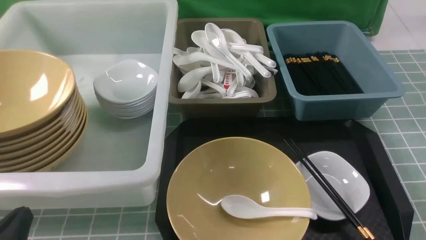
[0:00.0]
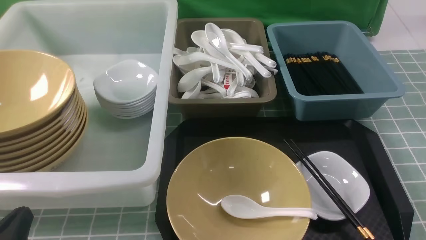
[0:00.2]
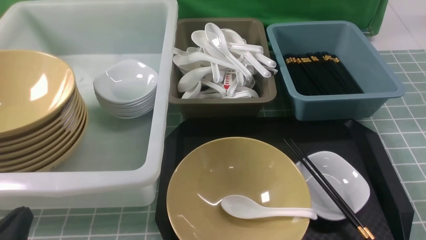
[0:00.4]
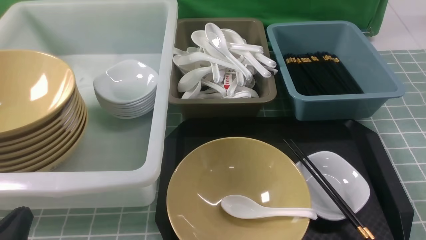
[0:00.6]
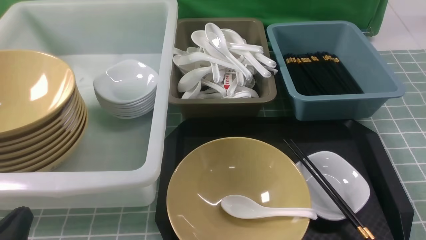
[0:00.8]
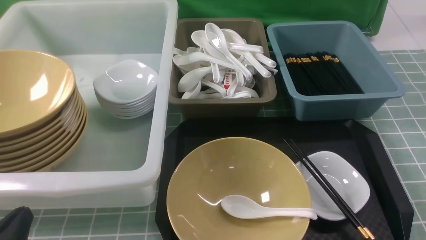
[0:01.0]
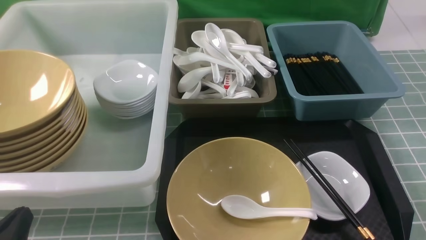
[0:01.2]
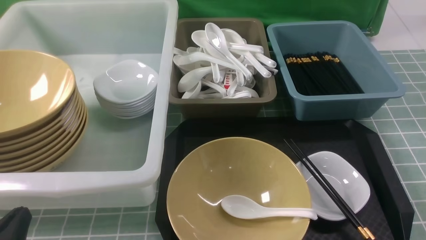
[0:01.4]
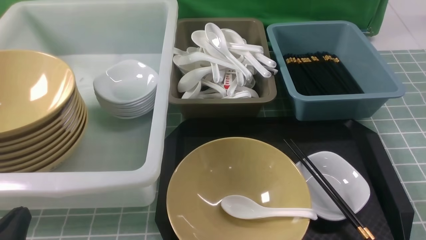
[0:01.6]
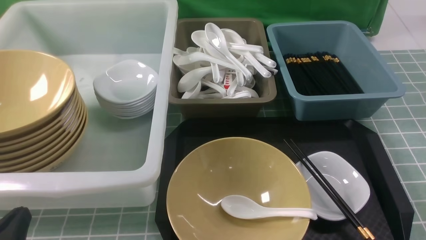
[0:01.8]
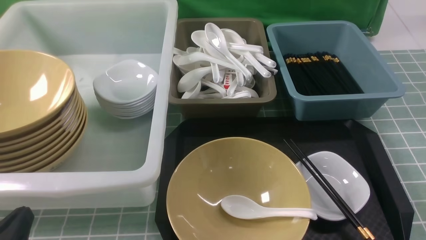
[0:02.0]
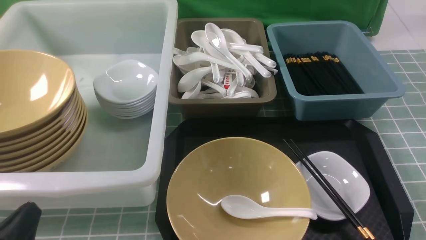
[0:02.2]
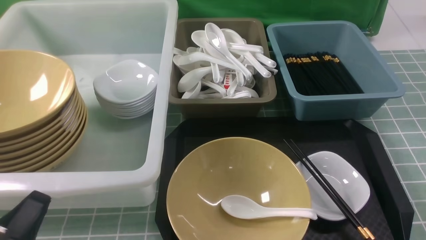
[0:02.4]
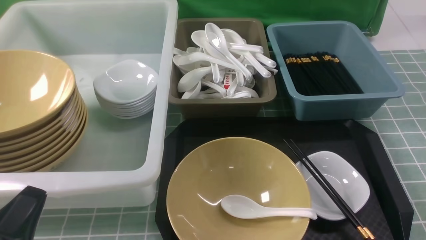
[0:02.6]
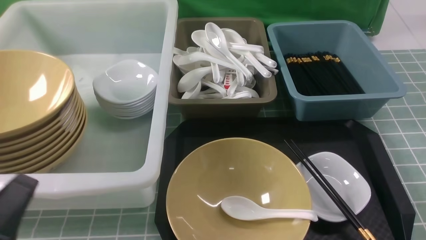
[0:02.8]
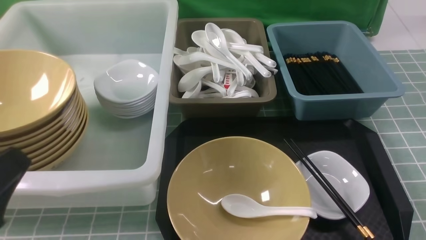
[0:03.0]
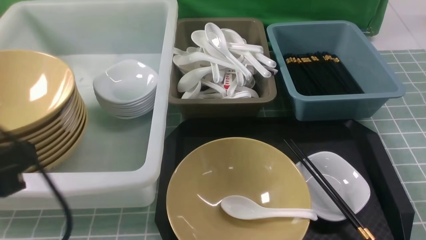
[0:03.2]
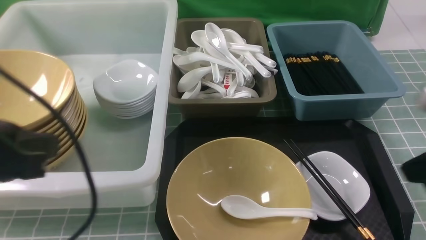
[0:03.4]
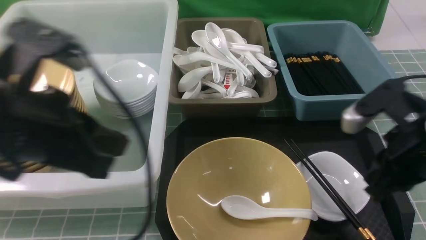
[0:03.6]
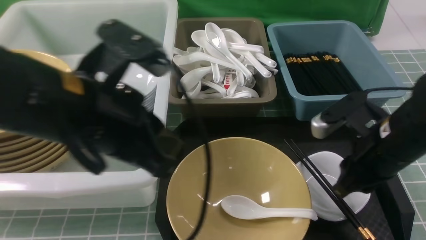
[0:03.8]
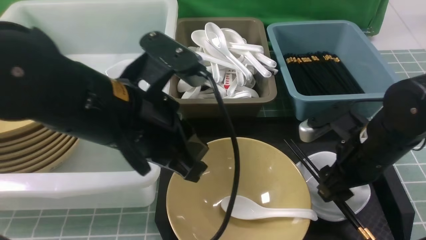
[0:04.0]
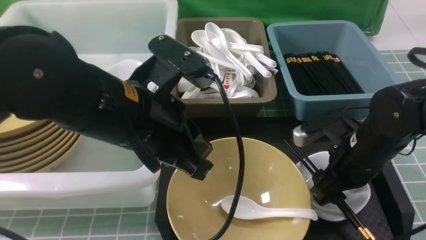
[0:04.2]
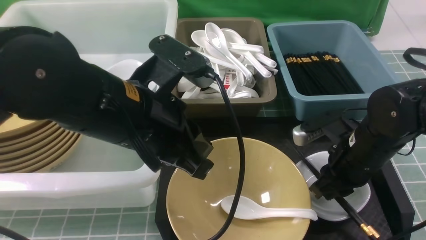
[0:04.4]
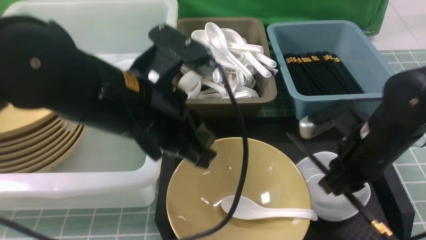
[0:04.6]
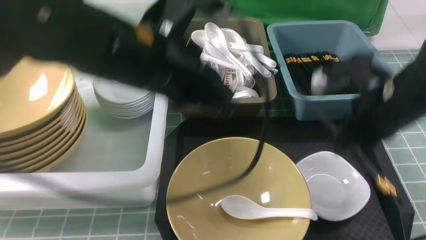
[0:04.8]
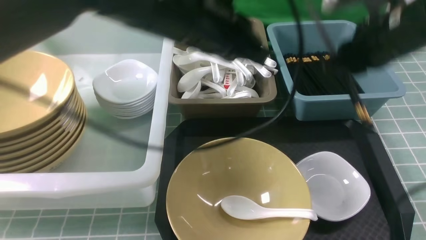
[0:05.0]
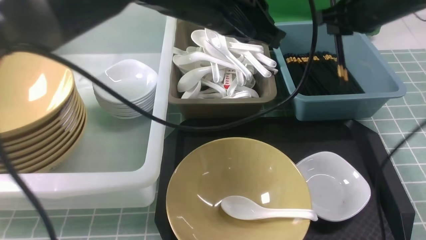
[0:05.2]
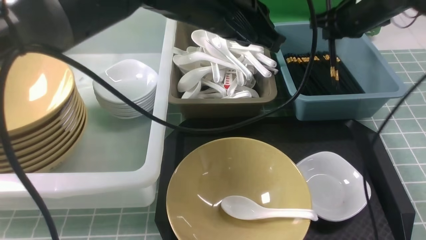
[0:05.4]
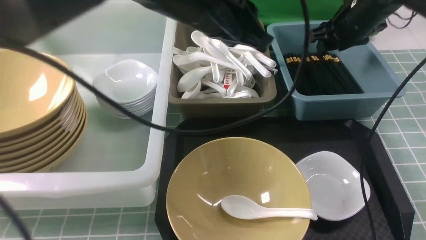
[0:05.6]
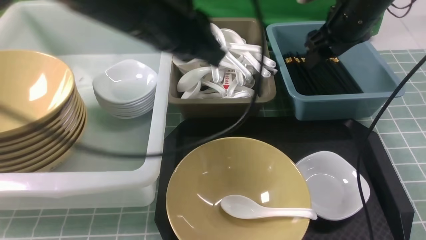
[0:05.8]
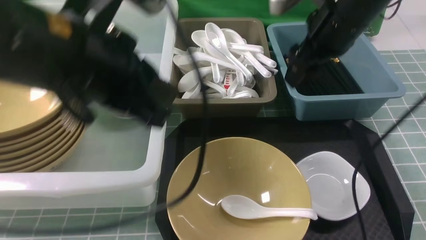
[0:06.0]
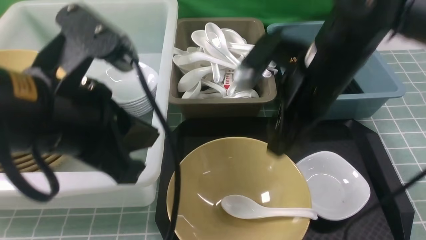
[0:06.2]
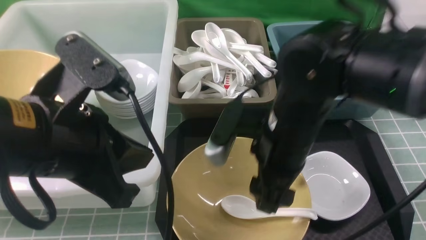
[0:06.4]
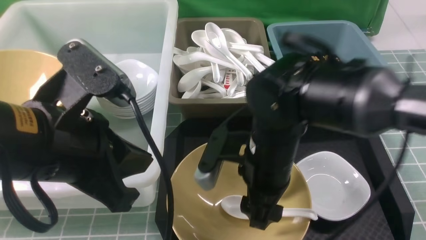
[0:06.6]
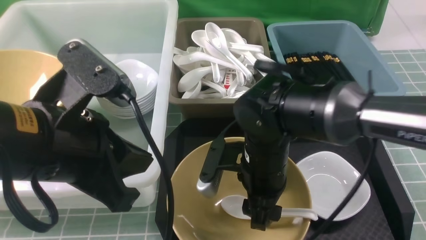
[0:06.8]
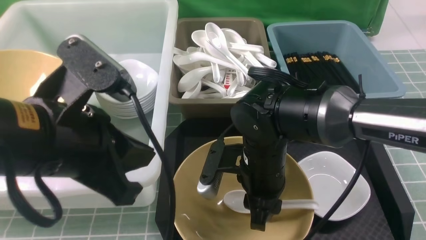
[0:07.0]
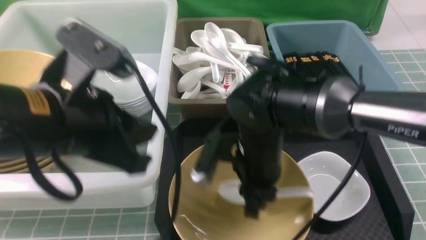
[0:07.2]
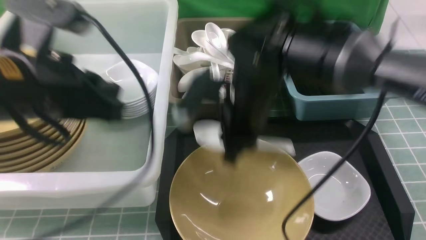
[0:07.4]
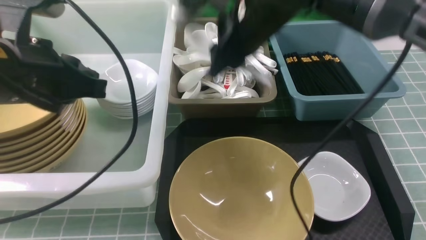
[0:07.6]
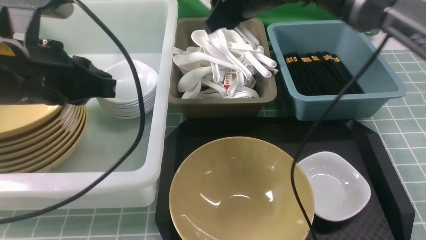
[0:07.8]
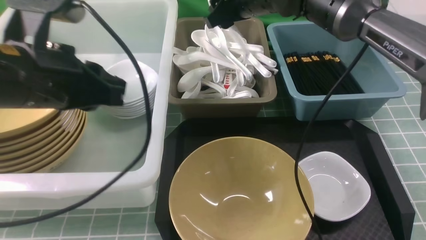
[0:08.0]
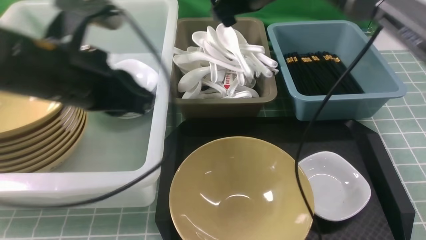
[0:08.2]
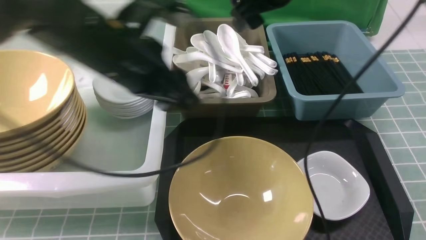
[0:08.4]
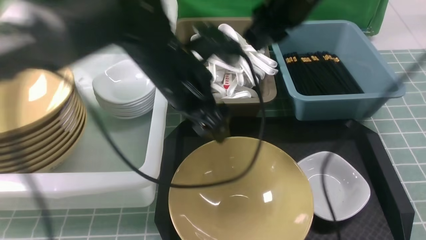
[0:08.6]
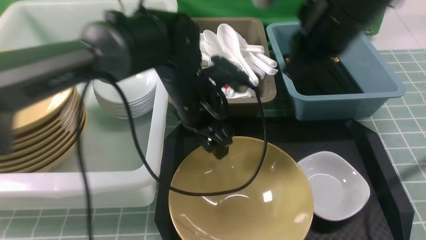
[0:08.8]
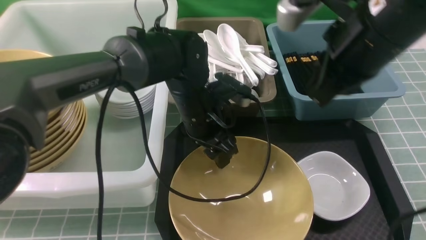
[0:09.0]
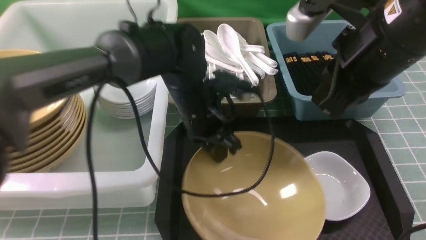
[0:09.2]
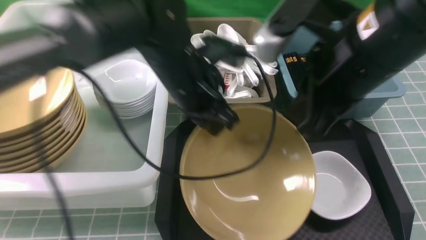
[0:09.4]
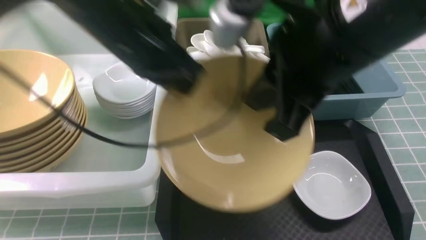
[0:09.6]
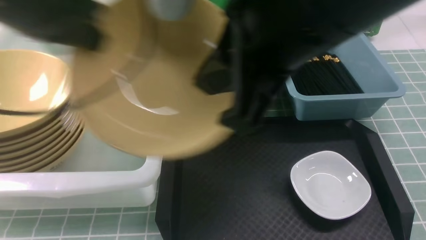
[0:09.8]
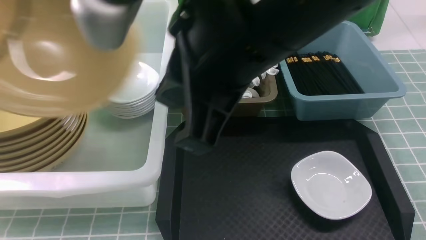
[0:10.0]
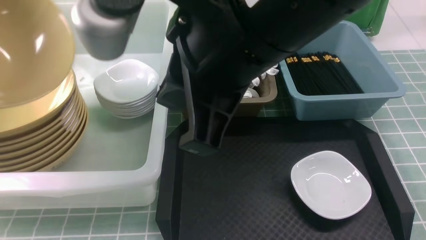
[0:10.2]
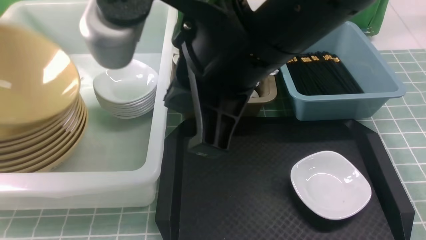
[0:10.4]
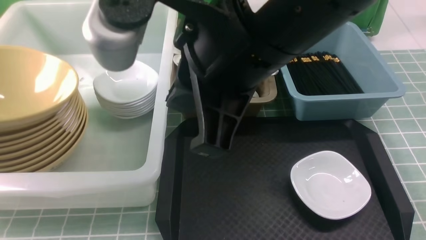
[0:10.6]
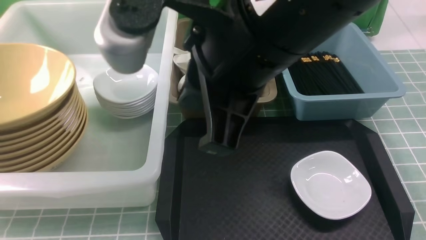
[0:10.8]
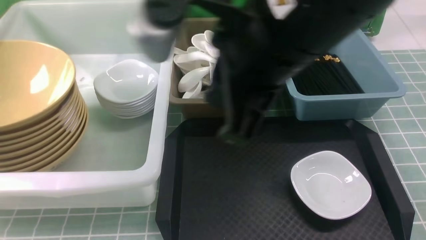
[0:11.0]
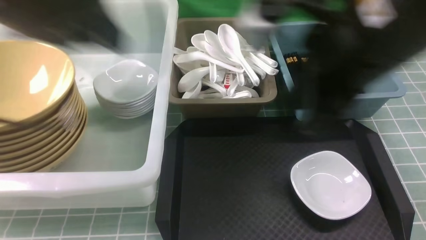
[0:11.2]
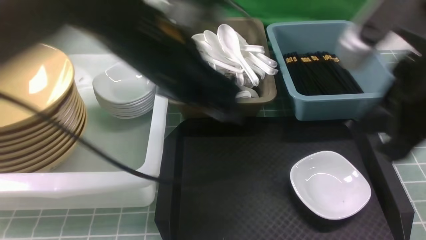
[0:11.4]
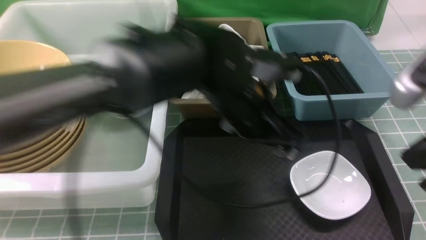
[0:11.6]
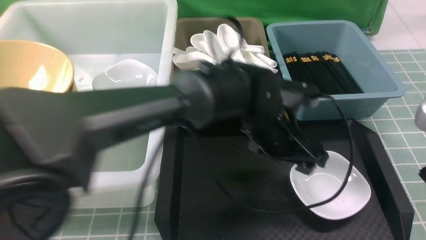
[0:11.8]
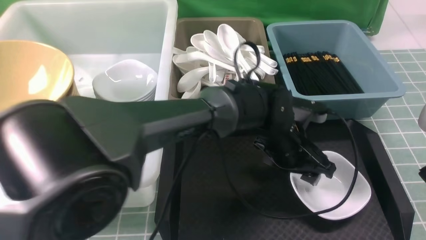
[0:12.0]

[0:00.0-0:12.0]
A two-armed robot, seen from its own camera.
Task of the whole recording: on blue table put chopsticks spoon bowls plates into blue grey white boxes.
Step, 0:00.0 to 0:04.6: use the right arm to grab the chopsticks.
Step, 0:04.8 to 0:05.8: use the right arm to put the chopsticks into the small storage box on the right.
Step, 0:06.0 to 0:07.4: use the right arm to grab the soup spoon in the middle.
Step, 0:07.6 to 0:08.2: use the right arm to put the soup spoon into the small storage box in the middle.
Step, 0:08.4 to 0:09.4: use the left arm to grab the yellow noodle bowl on the left.
Step, 0:09.6 to 0:10.6: use the left arm to put the noodle bowl into the large storage box on the left.
0:00.0 to 0:01.6: Neither gripper changes place.
0:01.6 to 0:03.0: Both grippers travel together upward, roughly 10 cm.
0:03.0 to 0:04.4: The right gripper travels forward, to the left and downward by some 25 cm, and opens, then closes once more; the left gripper shifts roughly 20 cm forward and to the right.
0:04.4 to 0:06.0: The right gripper is displaced upward and forward by approximately 15 cm, and opens. The left gripper shifts about 5 cm upward, and travels forward and back again, approximately 10 cm each way.
0:06.0 to 0:07.6: The two grippers go some 10 cm to the left. The right gripper reaches about 15 cm downward, then returns, and closes.
0:07.6 to 0:09.0: The right gripper shifts about 15 cm backward, to the right and upward, and closes its fingers. Meanwhile the left gripper shifts approximately 25 cm to the right, downward and forward, and opens its fingers.
0:09.0 to 0:10.4: The left gripper shifts approximately 40 cm to the left and upward. The right gripper moves to the left, backward and upward, about 15 cm.
0:10.4 to 0:12.0: The left gripper travels to the right and downward by about 50 cm, and opens, then closes again; the right gripper goes some 25 cm to the right and downward.

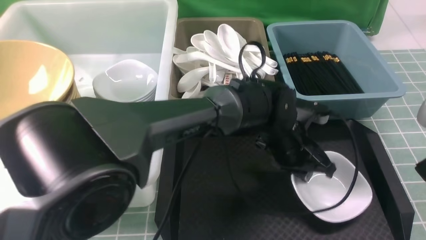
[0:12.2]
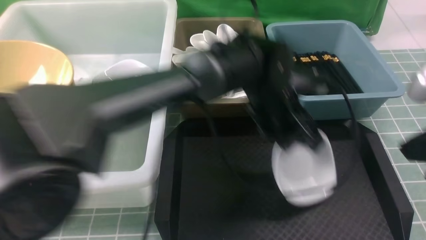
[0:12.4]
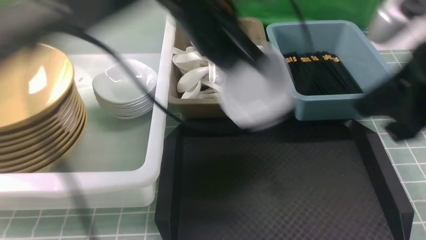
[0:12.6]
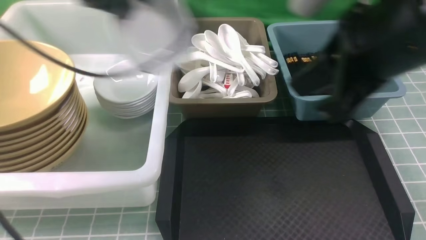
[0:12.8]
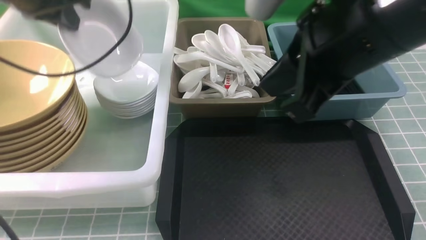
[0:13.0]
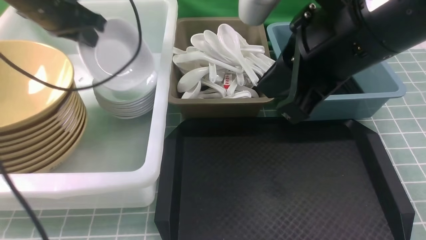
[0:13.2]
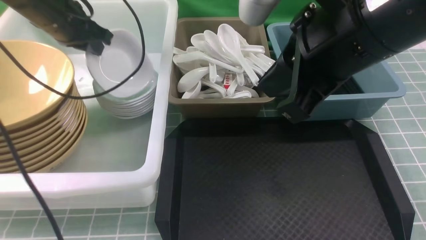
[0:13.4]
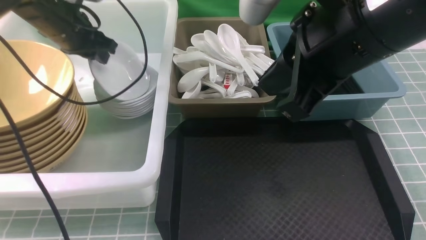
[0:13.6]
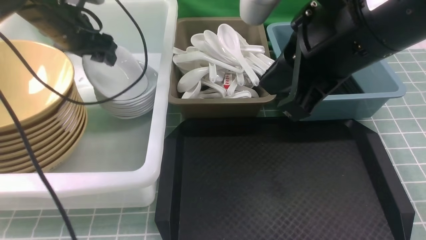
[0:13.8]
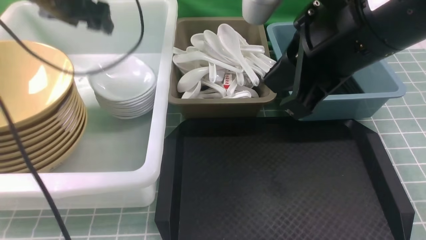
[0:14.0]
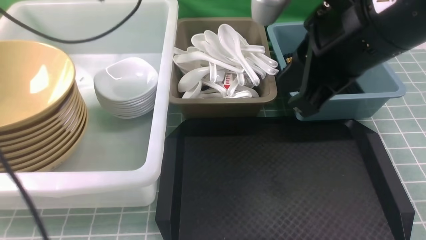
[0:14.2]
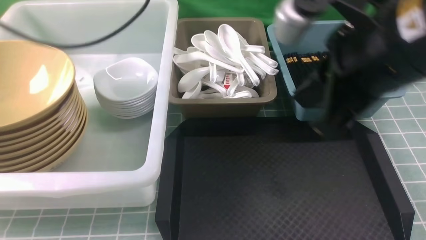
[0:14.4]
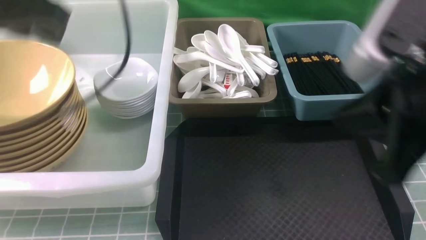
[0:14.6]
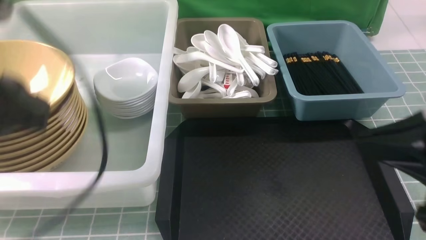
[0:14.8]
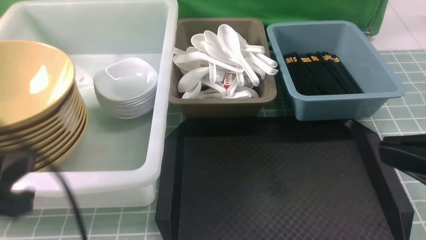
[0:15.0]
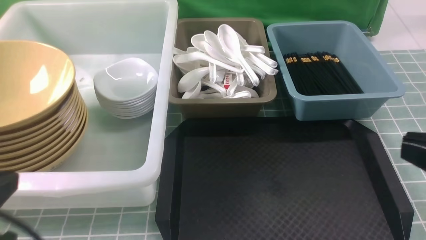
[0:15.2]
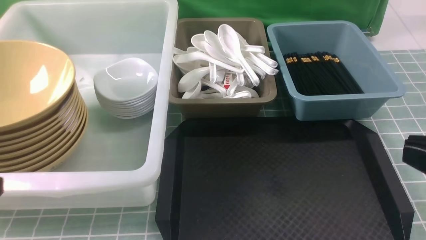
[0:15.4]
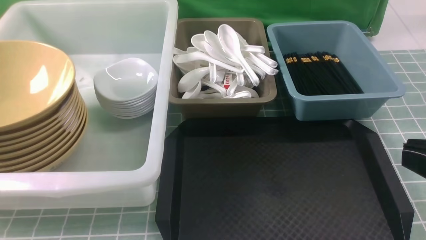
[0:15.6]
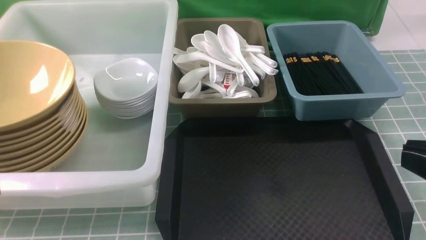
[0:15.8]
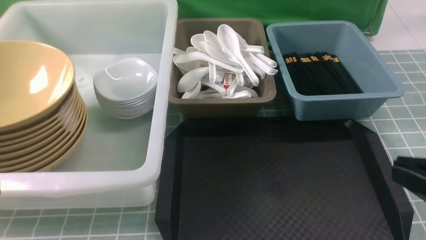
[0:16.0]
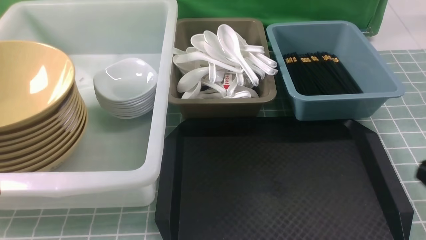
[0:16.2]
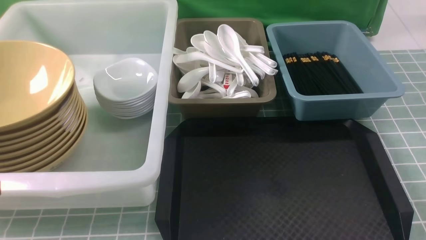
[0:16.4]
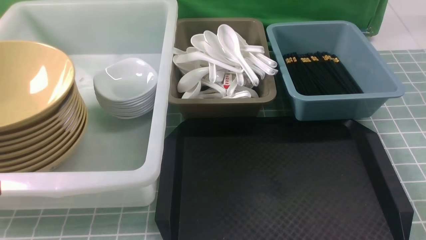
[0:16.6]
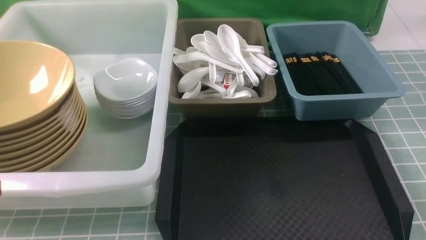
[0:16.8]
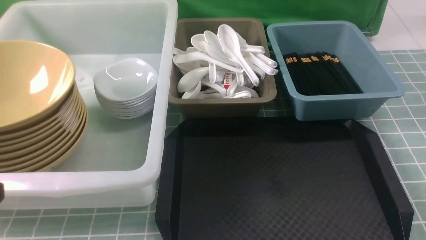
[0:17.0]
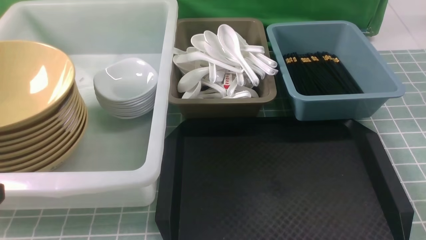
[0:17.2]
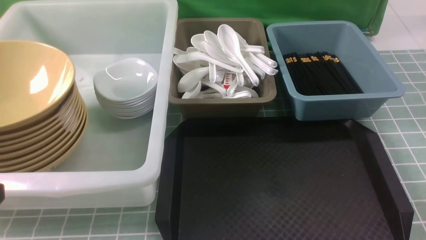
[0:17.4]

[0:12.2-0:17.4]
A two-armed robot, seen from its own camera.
Task of the whole recording: on blue table put chopsticks spoon bowls plates into blue grey white boxes.
Step, 0:12.6 to 0:13.8: use the left arm to put the plate into the large storage box on the left.
0:12.2 to 0:14.0: The right gripper travels to the left, forward and upward by some 15 cm; the left gripper travels to the left and upward by approximately 35 cm, and opens up.
0:14.0 to 0:15.6: The left gripper shifts about 40 cm backward, and closes up. The right gripper travels backward and to the right by approximately 20 cm.
0:15.6 to 0:17.4: The right gripper goes some 20 cm downward.
